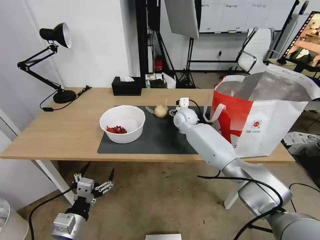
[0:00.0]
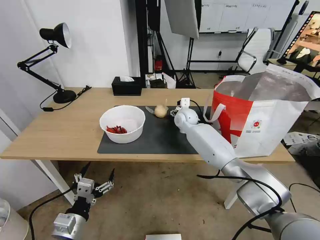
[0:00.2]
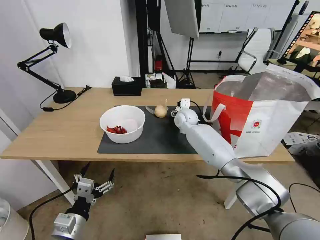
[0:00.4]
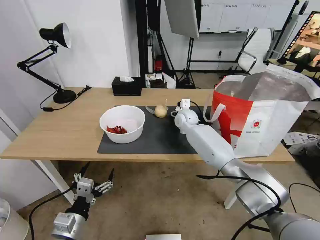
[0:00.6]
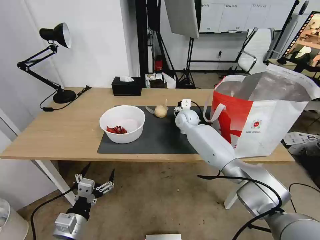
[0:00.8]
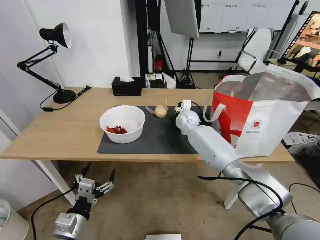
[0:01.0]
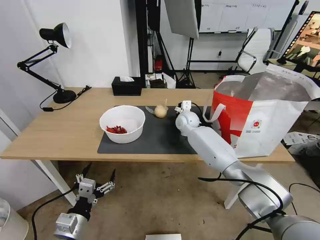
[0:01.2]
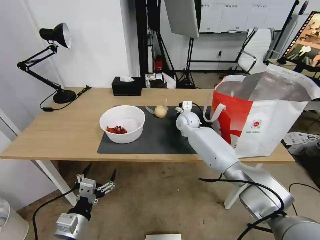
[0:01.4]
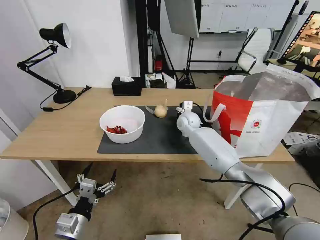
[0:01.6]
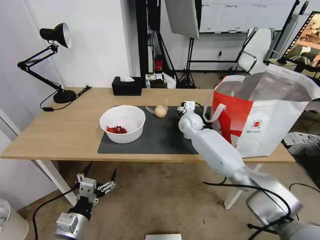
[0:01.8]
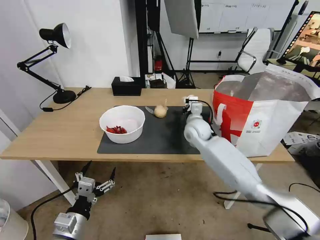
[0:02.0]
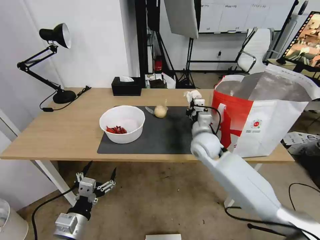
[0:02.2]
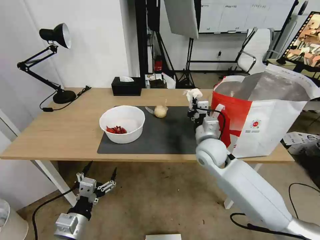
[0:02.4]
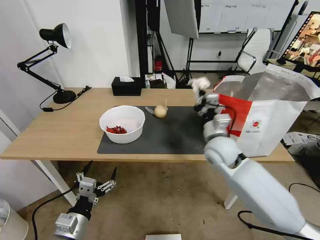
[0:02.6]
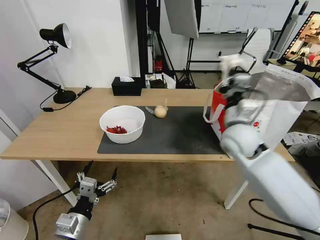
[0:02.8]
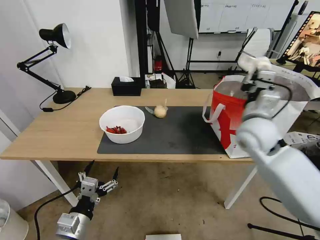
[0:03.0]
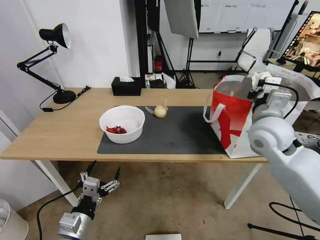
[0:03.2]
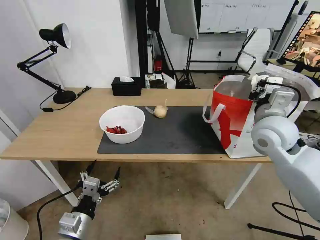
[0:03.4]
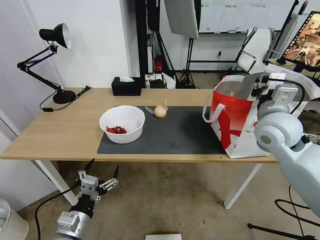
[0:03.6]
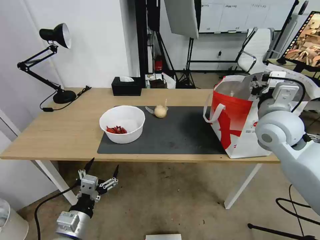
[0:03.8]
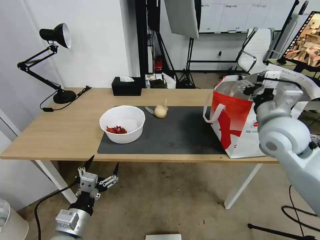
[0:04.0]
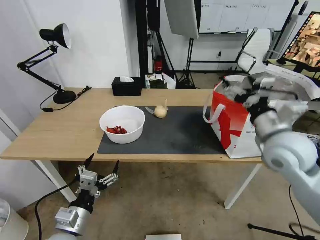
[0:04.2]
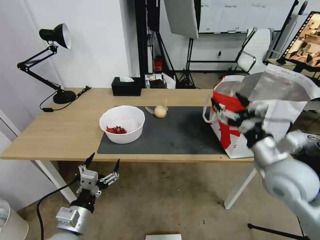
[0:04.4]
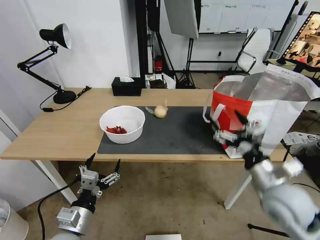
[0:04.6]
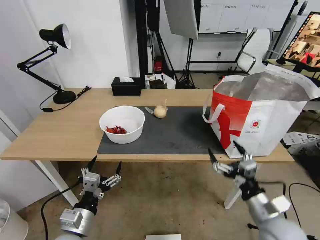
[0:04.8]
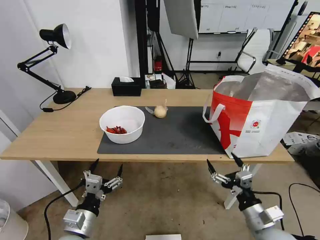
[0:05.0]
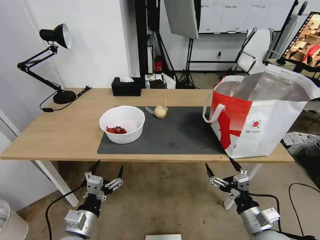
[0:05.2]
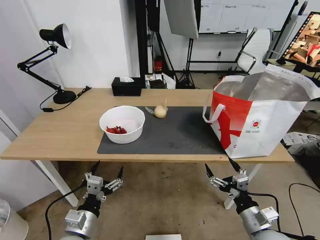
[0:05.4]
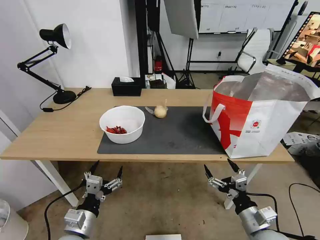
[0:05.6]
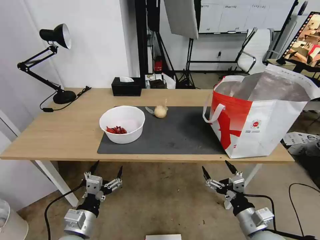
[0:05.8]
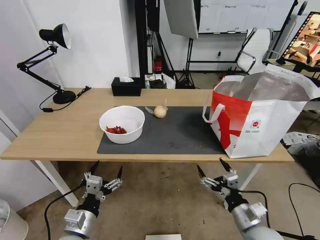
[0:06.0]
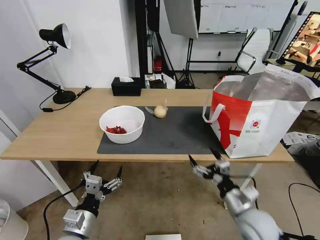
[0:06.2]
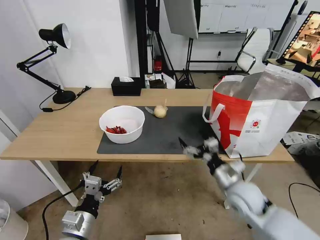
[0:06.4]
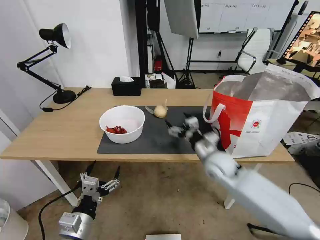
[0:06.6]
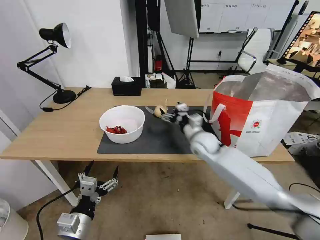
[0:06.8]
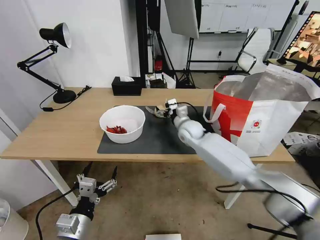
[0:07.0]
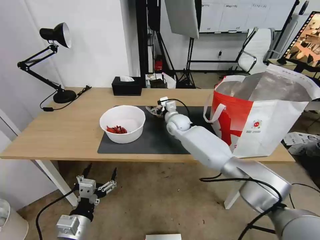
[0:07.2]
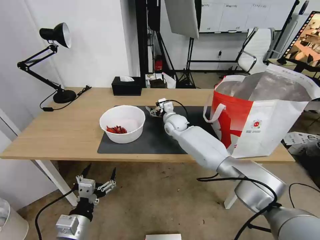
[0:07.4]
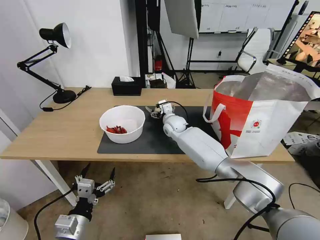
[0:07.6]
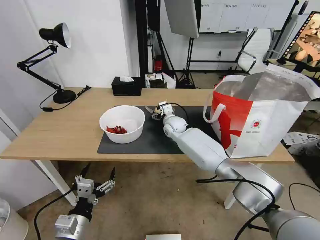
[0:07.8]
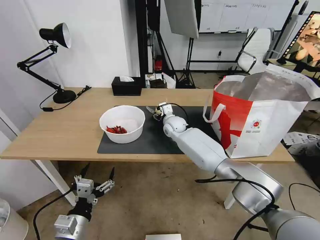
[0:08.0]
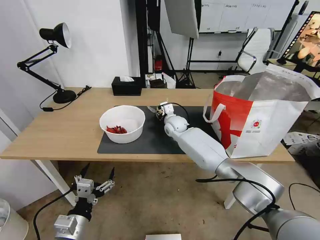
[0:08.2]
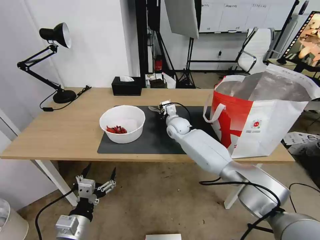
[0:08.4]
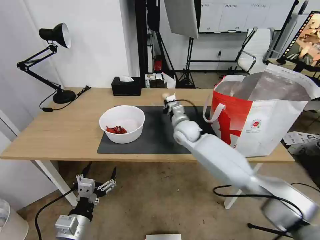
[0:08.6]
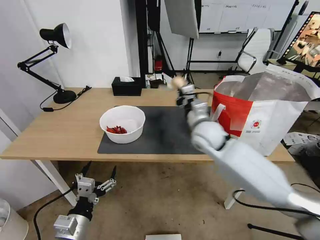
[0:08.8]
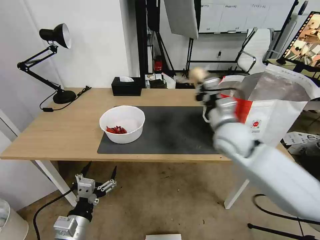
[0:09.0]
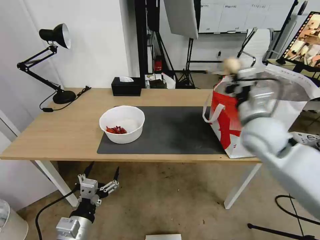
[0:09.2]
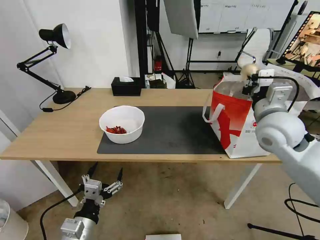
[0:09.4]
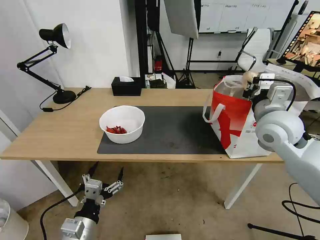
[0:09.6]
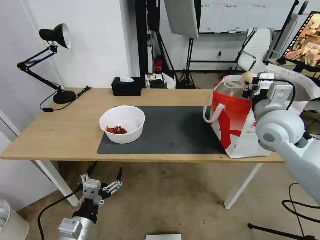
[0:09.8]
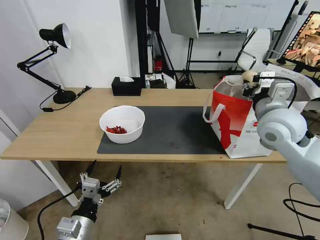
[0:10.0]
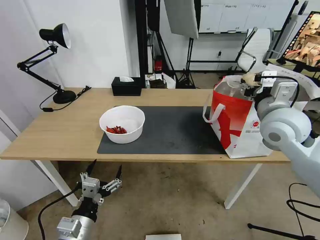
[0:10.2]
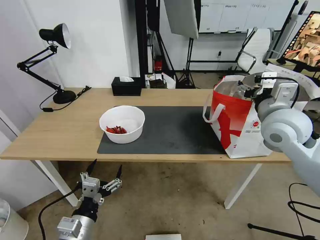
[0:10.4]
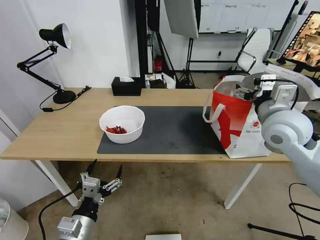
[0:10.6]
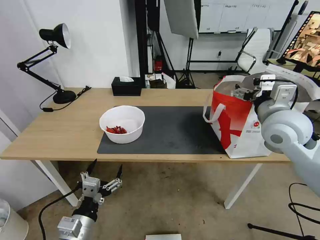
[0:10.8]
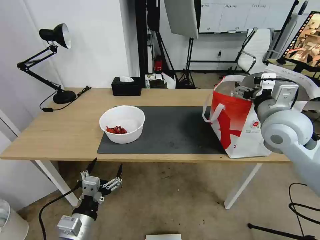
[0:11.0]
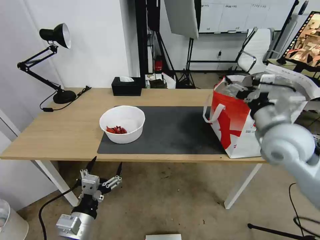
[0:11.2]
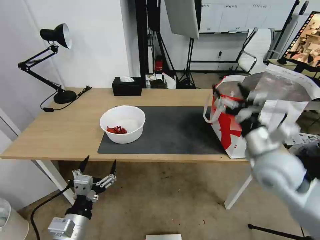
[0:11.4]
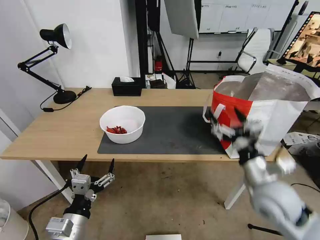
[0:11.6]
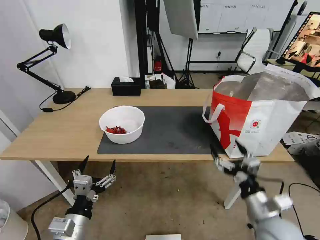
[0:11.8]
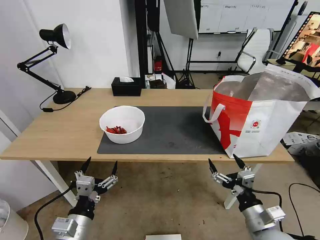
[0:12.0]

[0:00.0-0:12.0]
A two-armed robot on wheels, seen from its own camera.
Task of the whole recording: Pick up the trash from the table and place it into the takeout bag.
0:00.0 to 0:01.6: The right gripper closes.
0:01.6 to 0:03.0: The right gripper is displaced backward, upward and to the right by approximately 25 cm.
0:03.0 to 0:04.4: The right gripper shifts some 10 cm backward, and opens.
0:04.4 to 0:06.0: The right gripper moves downward and backward, roughly 20 cm.
0:06.0 to 0:07.6: The right gripper goes about 50 cm forward and to the left.
0:07.6 to 0:09.0: The right gripper travels backward, upward and to the right by about 25 cm, and closes up.
0:09.0 to 0:10.4: The right gripper travels to the right and upward by about 10 cm, and opens.
0:10.4 to 0:12.0: The right gripper shifts some 30 cm downward and backward.

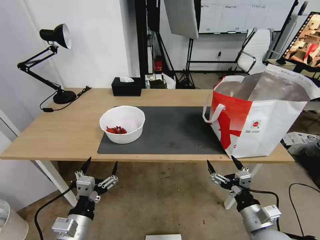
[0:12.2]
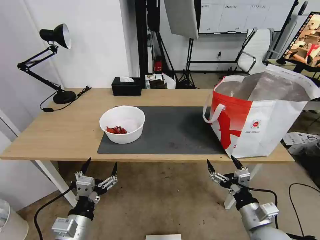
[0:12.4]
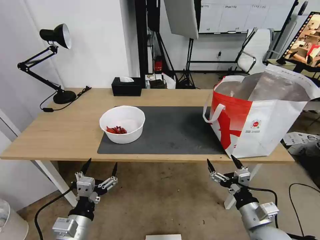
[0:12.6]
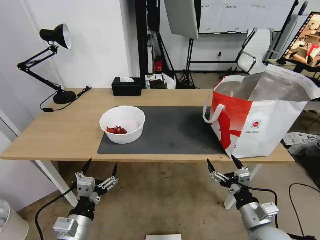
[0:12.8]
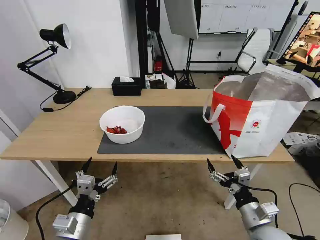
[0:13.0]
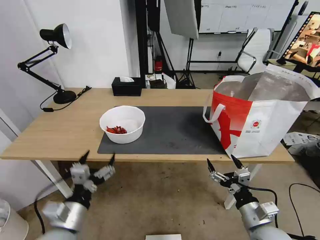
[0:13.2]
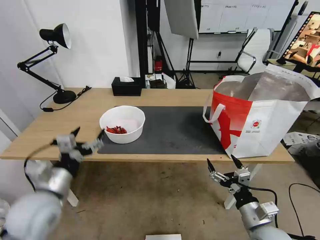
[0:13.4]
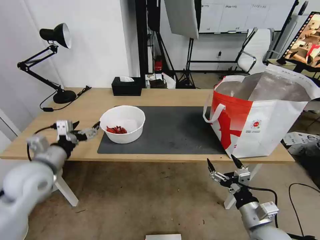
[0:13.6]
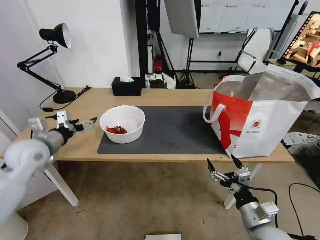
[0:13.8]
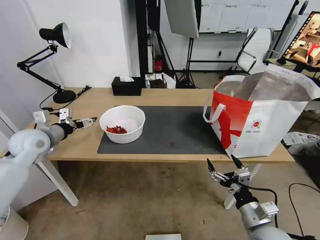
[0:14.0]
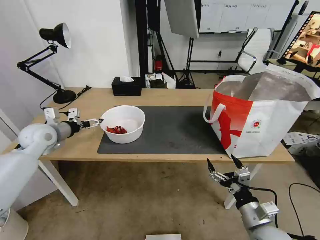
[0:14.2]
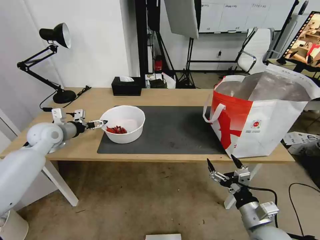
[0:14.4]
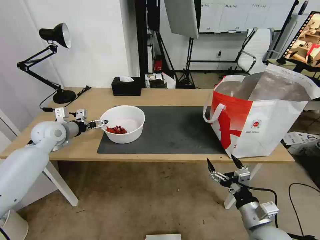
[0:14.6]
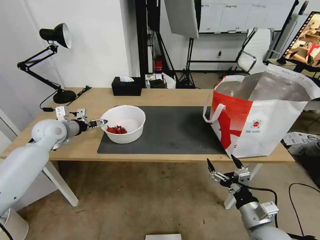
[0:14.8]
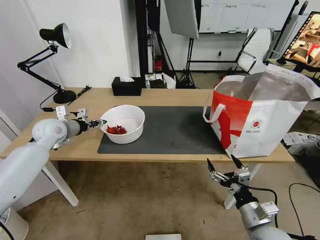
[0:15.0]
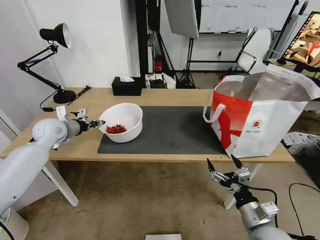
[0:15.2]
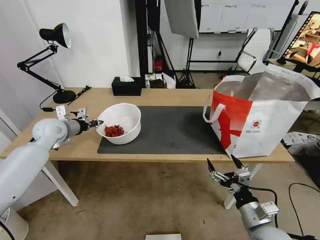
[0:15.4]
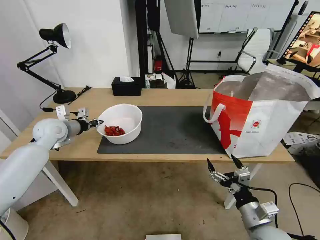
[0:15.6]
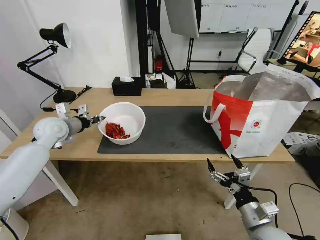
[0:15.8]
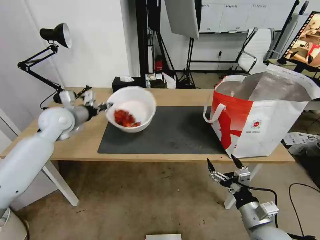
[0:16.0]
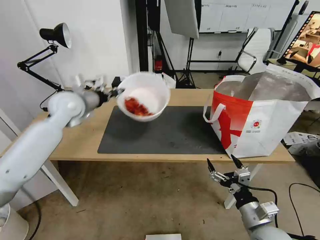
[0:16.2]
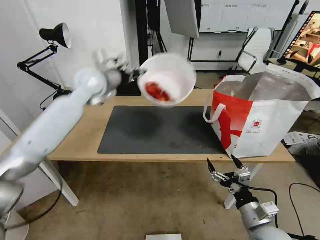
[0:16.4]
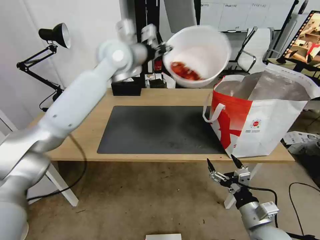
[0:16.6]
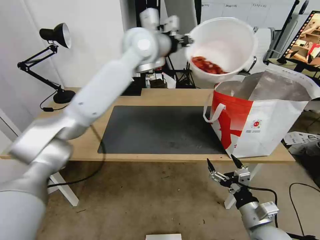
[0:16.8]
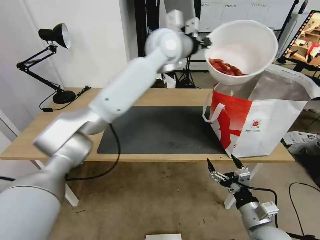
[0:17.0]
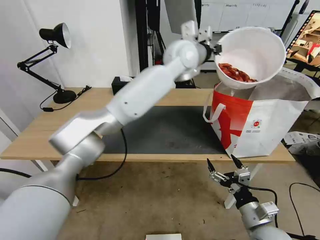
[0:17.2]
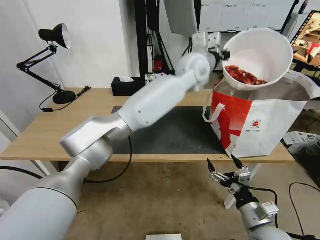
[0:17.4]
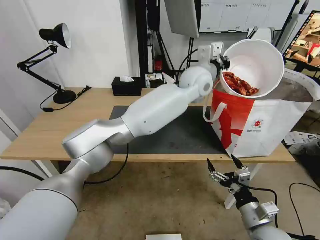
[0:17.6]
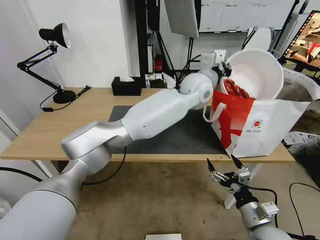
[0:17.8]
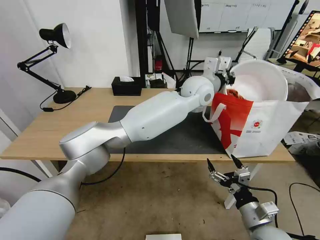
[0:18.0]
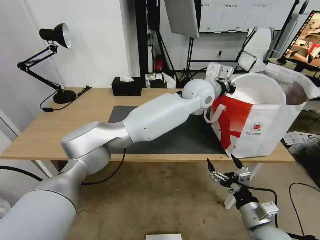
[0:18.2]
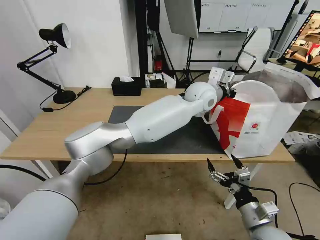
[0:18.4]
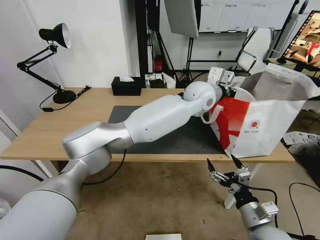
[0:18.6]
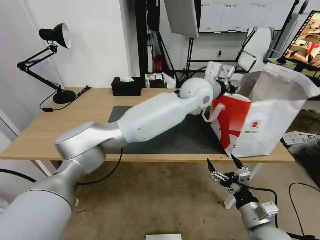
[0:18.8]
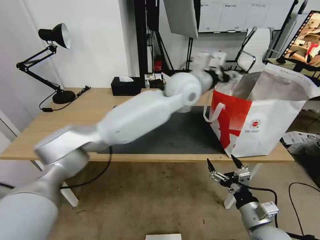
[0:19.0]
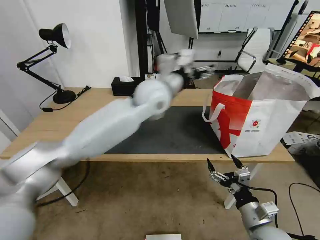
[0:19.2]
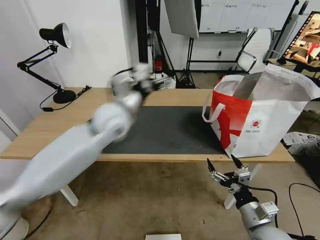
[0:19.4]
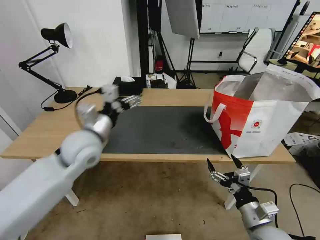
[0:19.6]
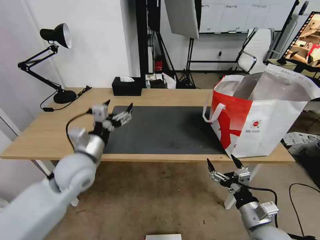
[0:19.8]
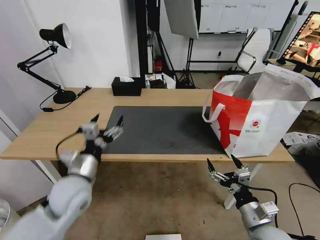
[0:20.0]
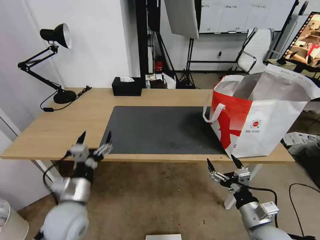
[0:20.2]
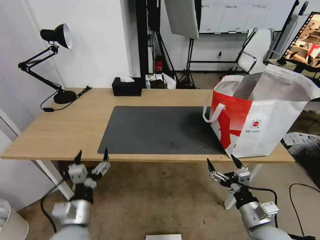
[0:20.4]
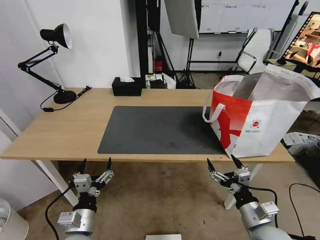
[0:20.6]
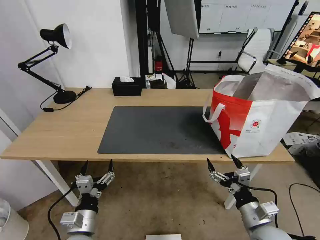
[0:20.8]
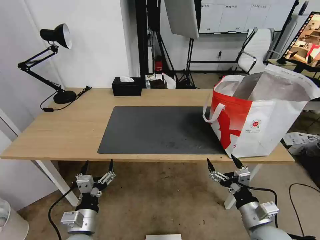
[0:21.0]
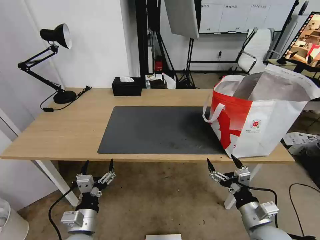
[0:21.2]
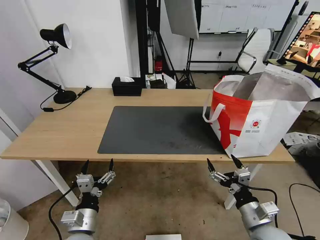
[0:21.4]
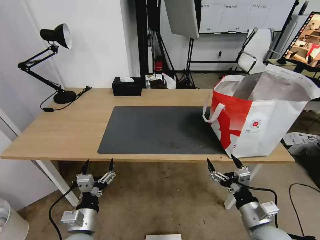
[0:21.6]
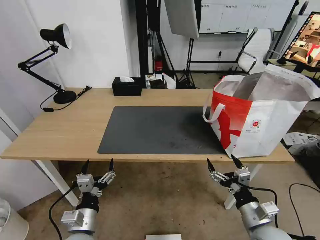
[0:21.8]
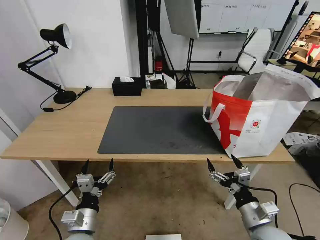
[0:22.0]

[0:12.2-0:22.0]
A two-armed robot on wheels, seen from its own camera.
Task of the whole recording: Pick up the trash from the table and place it into the takeout bag.
0:12.2 to 0:13.6: The left gripper shifts roughly 20 cm forward, upward and to the left.
0:13.6 to 0:15.0: The left gripper moves forward, approximately 20 cm, and closes.
0:15.0 to 0:16.4: The left gripper heads to the right and upward, covering some 25 cm, and closes.
0:16.4 to 0:17.8: The left gripper goes about 30 cm to the right.
0:17.8 to 0:19.2: The left gripper shifts approximately 15 cm to the left and backward, and opens.
0:19.2 to 0:20.6: The left gripper moves backward, downward and to the left, about 50 cm.
0:20.6 to 0:22.0: Both grippers stay about where they are.
